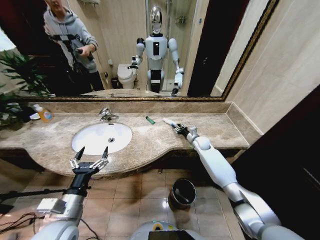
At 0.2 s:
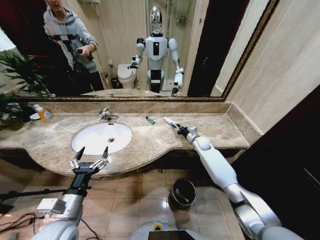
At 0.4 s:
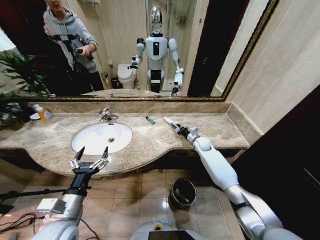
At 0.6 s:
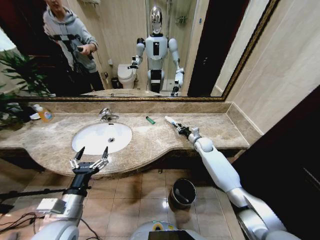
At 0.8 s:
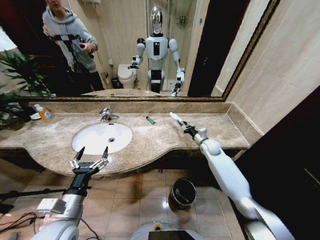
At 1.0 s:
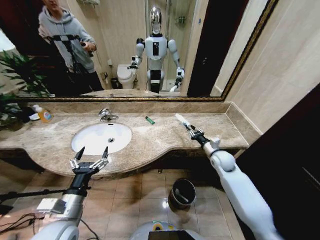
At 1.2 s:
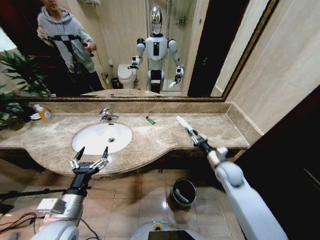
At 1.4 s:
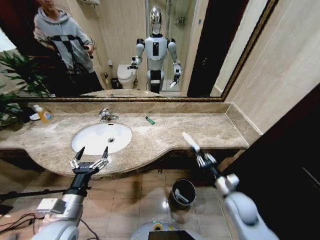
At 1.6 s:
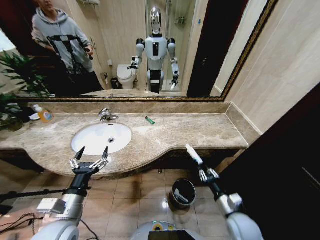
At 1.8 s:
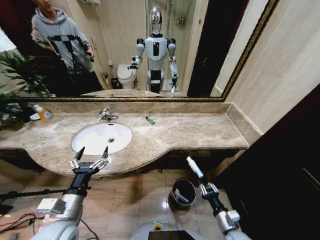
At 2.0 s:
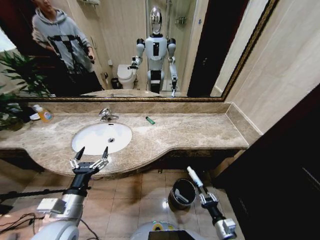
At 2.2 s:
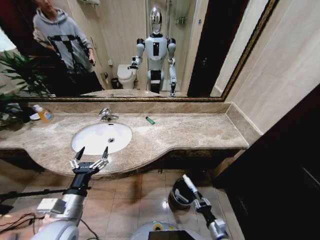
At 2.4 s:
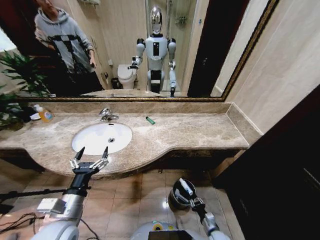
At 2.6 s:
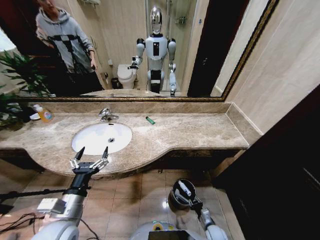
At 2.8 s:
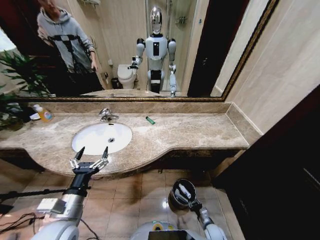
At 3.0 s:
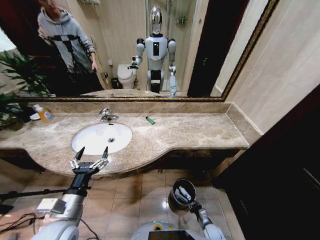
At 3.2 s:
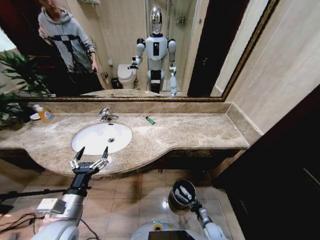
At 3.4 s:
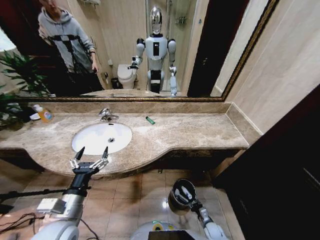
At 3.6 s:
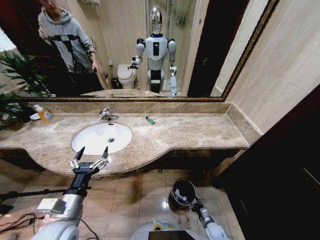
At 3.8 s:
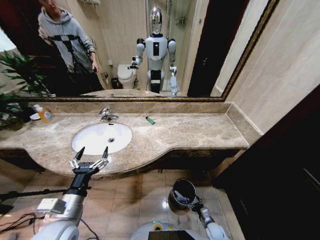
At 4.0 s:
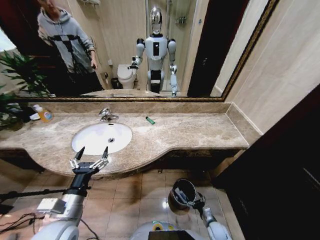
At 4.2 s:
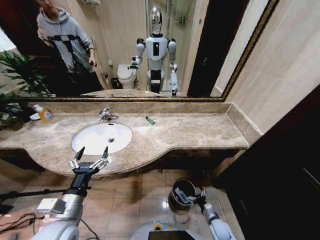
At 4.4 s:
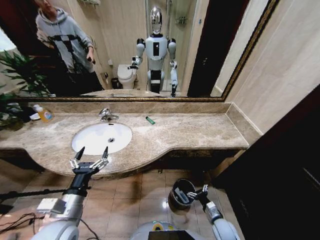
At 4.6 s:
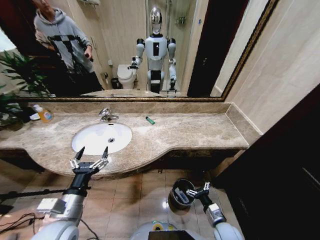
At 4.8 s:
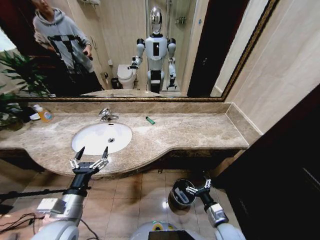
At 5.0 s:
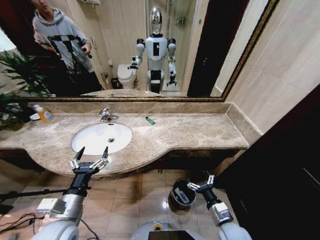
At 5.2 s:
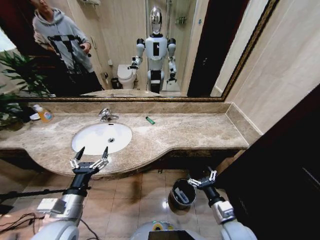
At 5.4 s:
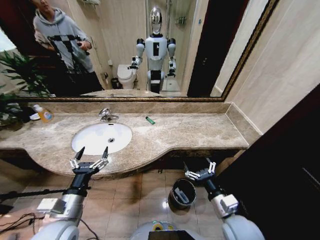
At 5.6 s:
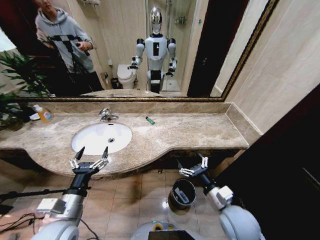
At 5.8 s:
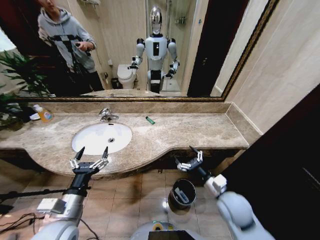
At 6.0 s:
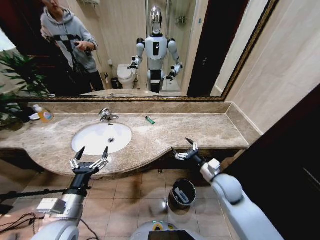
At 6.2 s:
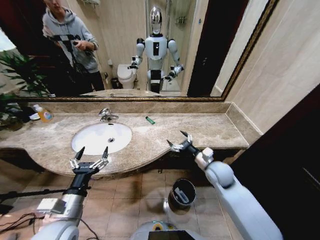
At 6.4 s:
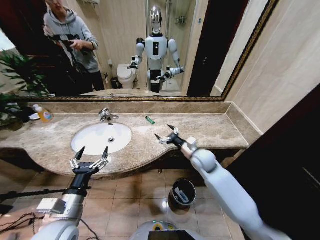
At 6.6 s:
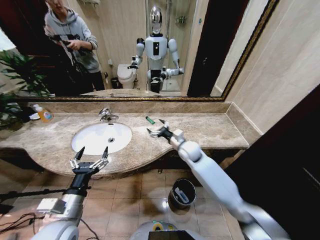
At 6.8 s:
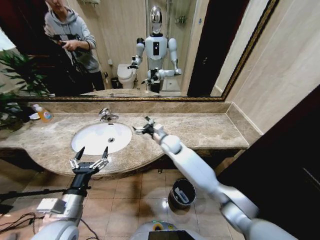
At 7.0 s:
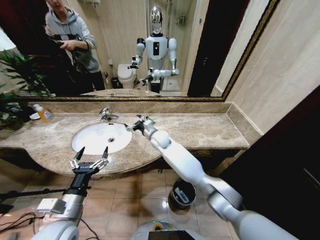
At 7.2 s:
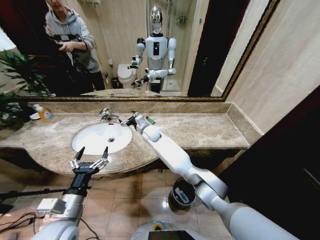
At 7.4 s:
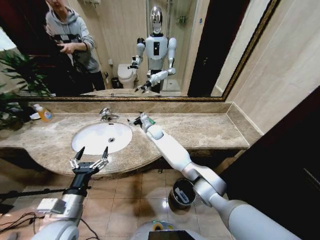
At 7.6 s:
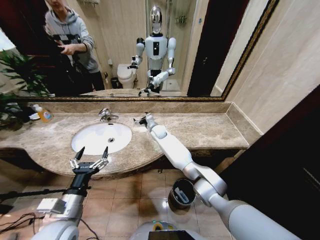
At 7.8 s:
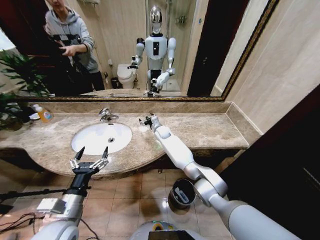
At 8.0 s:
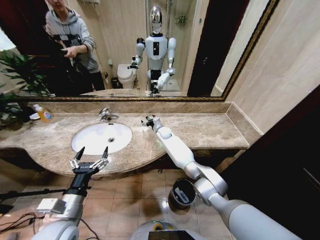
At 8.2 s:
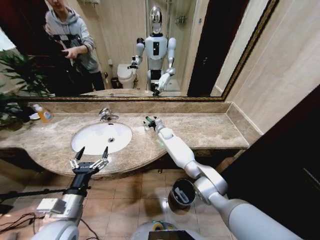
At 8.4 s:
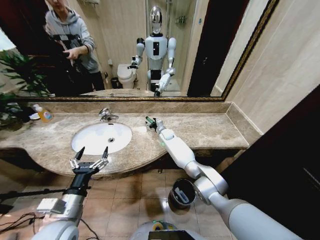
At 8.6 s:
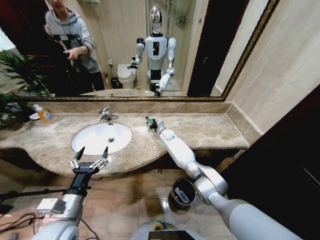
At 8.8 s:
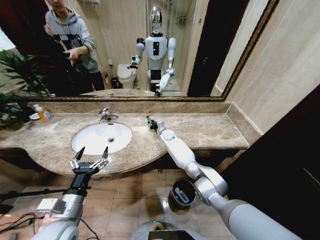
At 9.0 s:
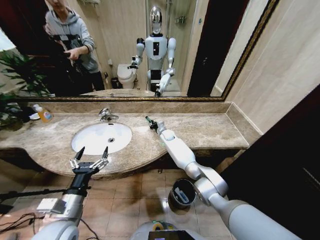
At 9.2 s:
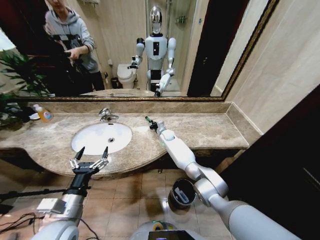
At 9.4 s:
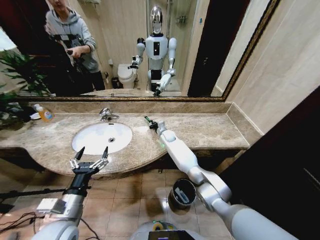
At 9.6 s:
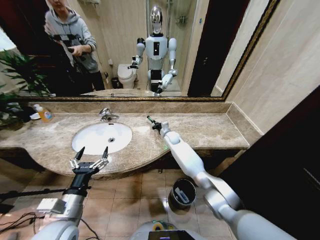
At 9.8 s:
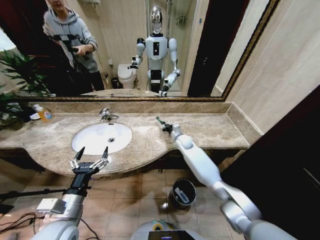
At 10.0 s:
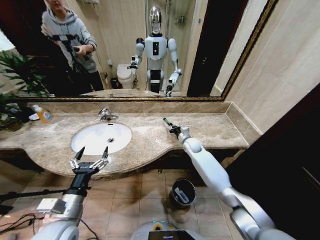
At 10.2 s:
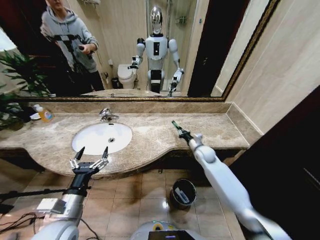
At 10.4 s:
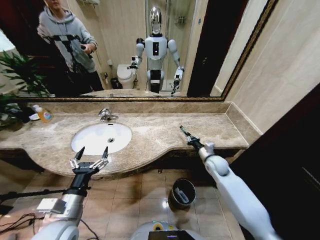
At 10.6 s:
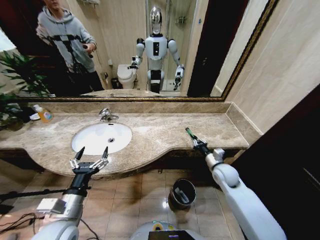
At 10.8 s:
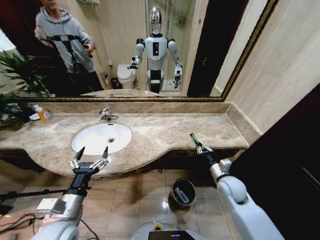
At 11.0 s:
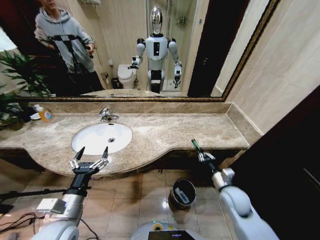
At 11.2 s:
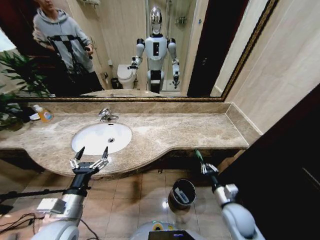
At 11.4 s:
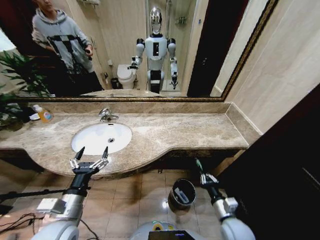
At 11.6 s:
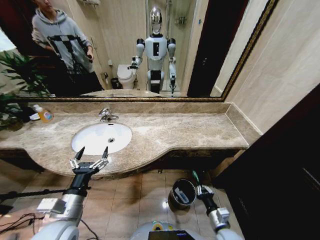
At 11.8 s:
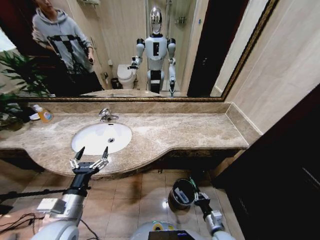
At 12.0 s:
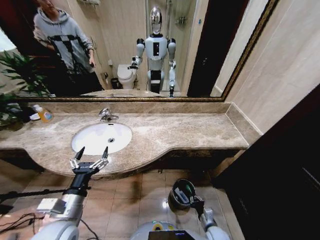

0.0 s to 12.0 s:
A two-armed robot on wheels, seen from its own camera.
Task of the whole recording: Pick up the trash from the sink and place it in the trash bin.
0.0 to 1.6 s: The right gripper heads backward, covering some 40 cm.
1.6 to 3.0 s: The right gripper heads downward, covering approximately 25 cm.
3.0 to 4.4 s: The right gripper is displaced upward by about 15 cm, and opens its fingers.
4.4 to 6.0 s: The right gripper moves upward and forward, approximately 25 cm.
6.0 to 7.6 s: The right gripper moves forward and to the left, some 40 cm.
7.6 to 9.0 s: The right gripper is displaced downward and to the right by roughly 10 cm, and closes.
9.0 to 10.4 s: The right gripper travels backward and to the right by about 30 cm.
10.4 to 12.0 s: The right gripper travels backward and downward by about 35 cm.

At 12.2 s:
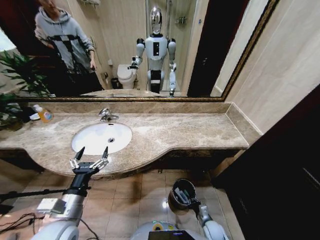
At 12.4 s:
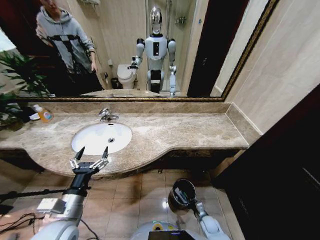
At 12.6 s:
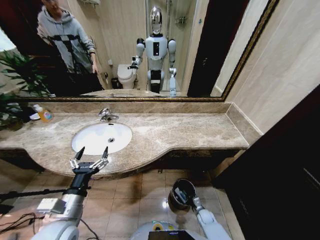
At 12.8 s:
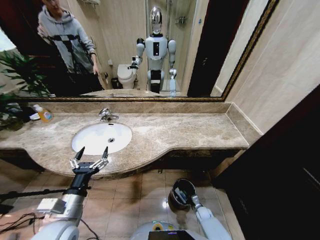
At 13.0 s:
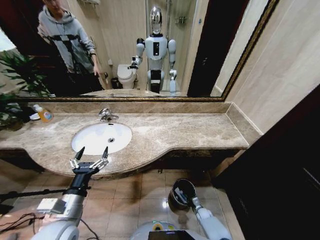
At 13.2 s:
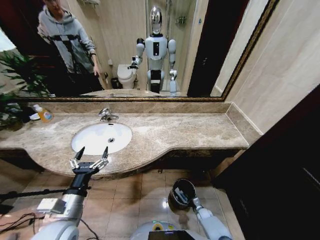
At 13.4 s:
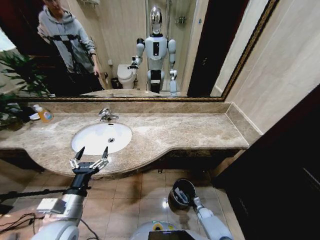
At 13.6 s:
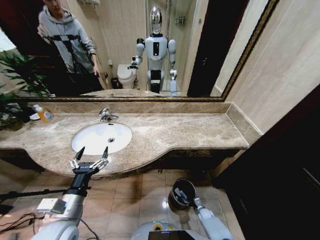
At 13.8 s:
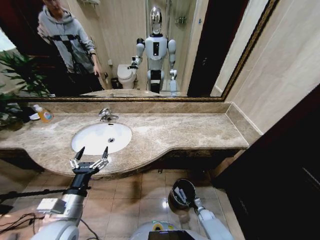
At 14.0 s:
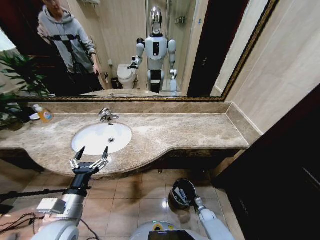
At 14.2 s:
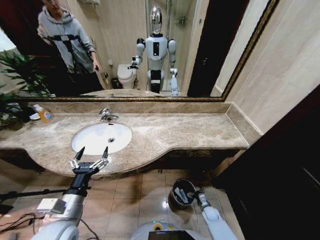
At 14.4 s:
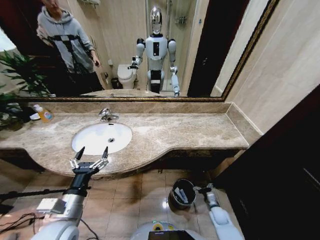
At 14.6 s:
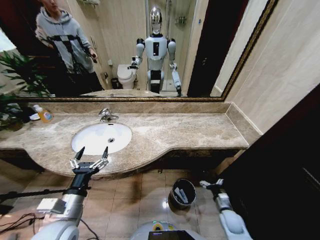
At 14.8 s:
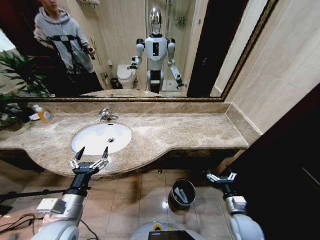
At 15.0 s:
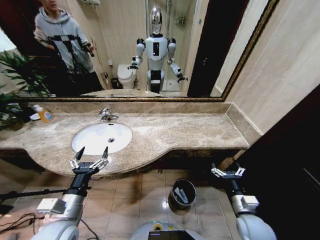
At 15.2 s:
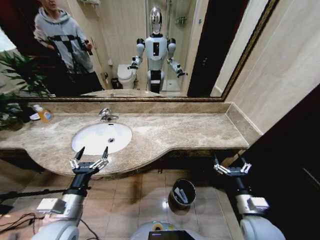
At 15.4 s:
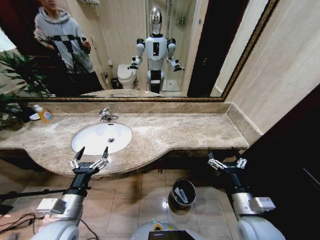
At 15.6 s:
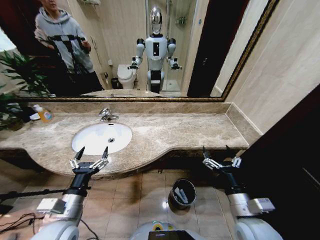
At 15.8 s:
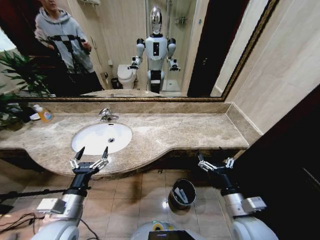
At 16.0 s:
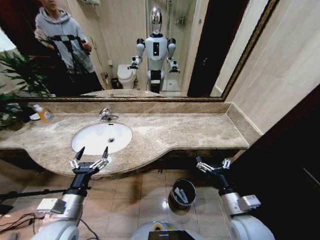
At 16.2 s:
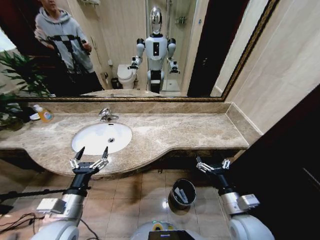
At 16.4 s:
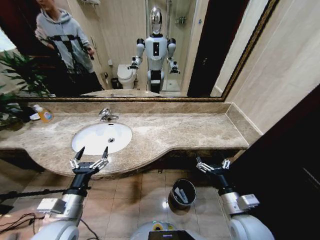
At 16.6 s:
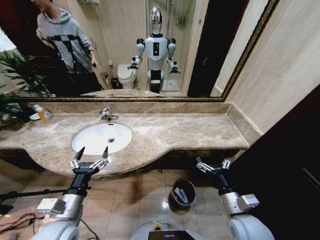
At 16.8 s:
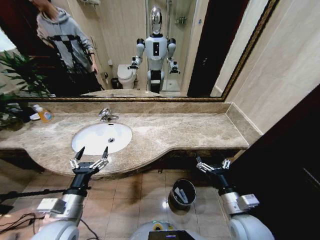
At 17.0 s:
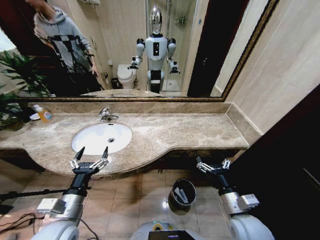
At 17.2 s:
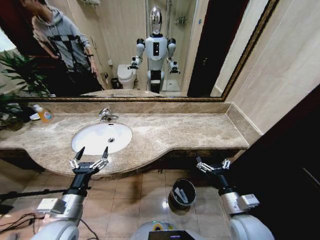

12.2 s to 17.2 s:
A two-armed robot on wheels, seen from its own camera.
Task of the whole recording: Pick up the trash from the sink and place it in the trash bin.
12.2 to 13.8 s: The right gripper moves downward and forward, roughly 15 cm, and opens its fingers.
13.8 to 15.6 s: The right gripper goes roughly 40 cm upward, and opens.
15.6 to 17.2 s: The grippers stay close to where they were, moving slightly.

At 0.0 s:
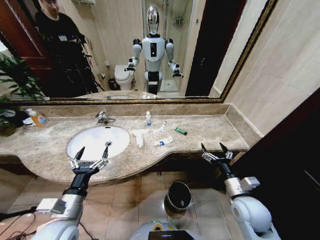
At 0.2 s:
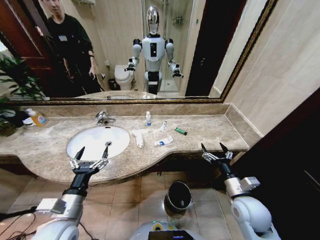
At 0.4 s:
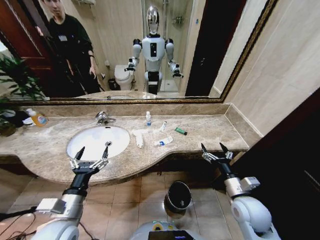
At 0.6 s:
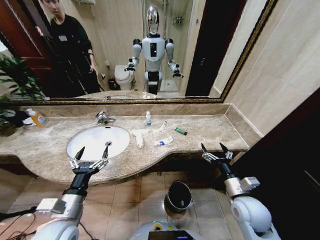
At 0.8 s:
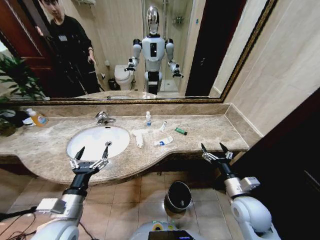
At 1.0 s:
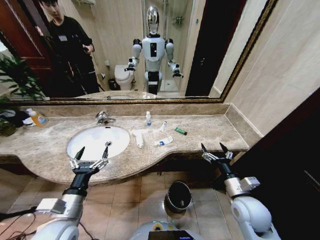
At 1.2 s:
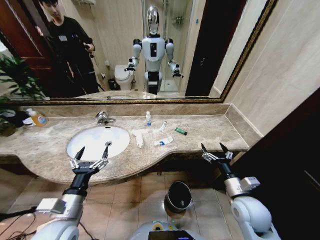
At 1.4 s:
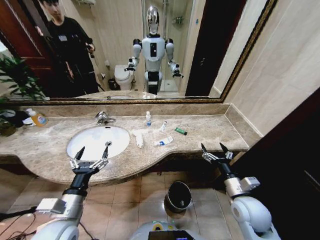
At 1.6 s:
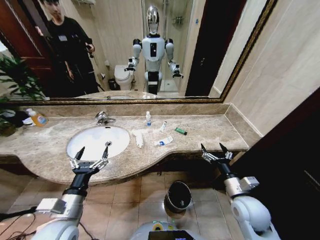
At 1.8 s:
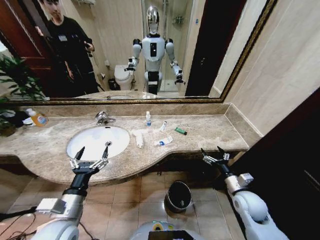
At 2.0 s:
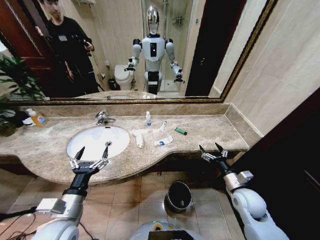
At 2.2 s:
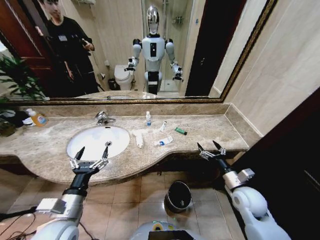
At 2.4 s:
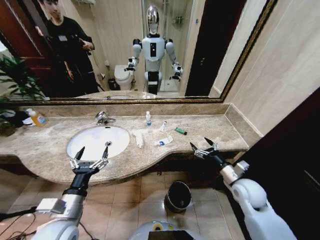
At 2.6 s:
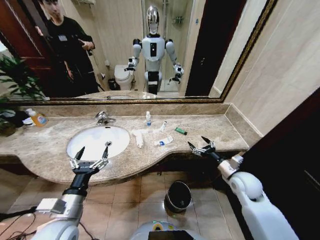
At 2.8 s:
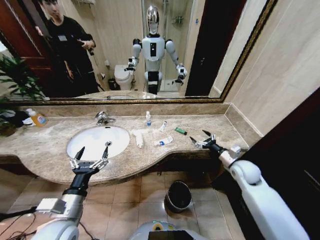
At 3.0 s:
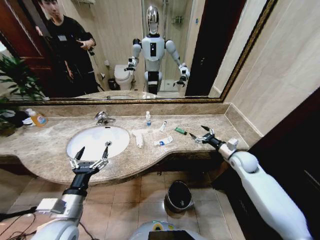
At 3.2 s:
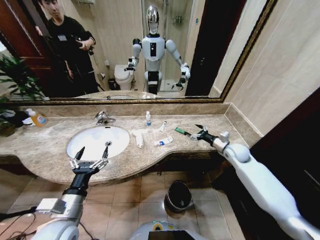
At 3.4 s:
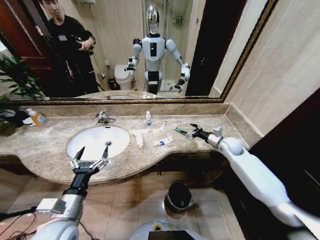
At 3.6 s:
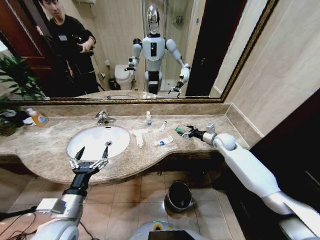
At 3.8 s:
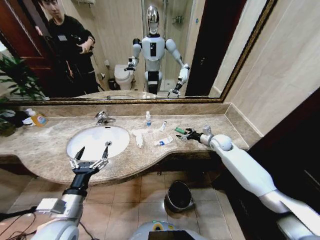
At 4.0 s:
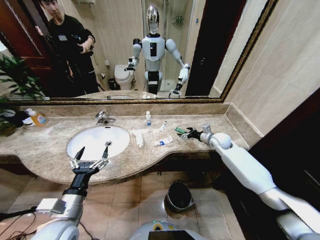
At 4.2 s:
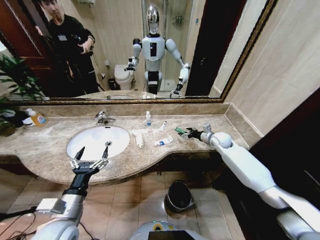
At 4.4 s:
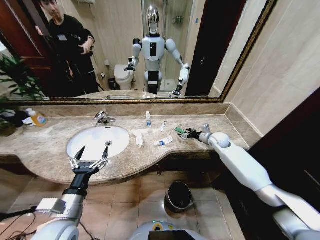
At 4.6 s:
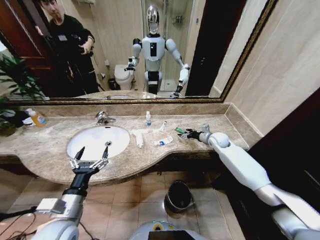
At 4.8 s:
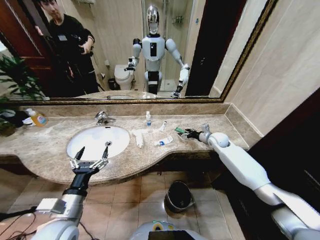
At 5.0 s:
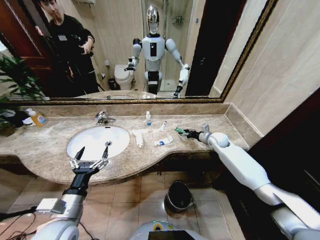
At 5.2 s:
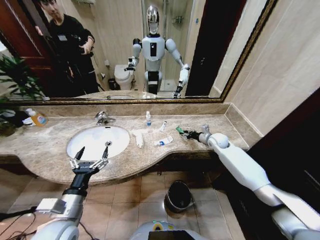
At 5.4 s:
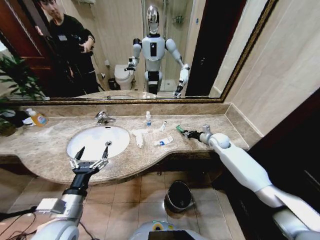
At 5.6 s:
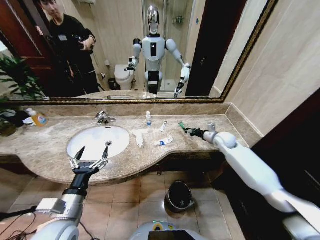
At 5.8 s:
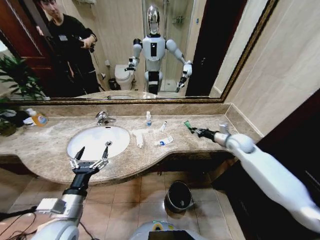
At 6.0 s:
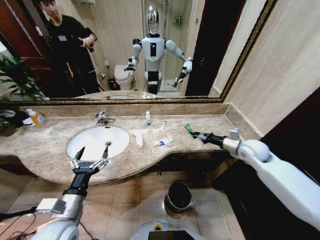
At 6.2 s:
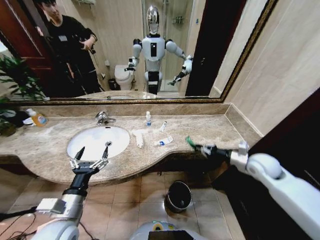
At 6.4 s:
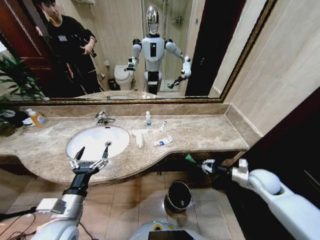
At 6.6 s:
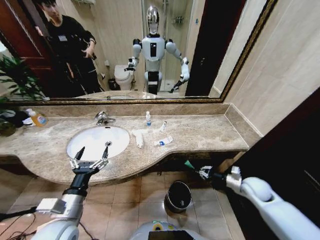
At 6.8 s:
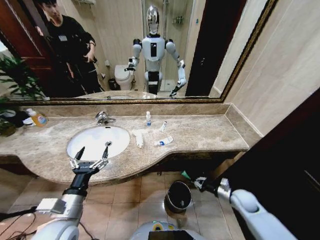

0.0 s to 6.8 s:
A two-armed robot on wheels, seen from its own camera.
Task of the whole recording: Pick up the trash from the sink and place it in the trash bin.
1.4 to 2.8 s: The right gripper heads forward and to the right, covering some 15 cm.
2.8 to 4.0 s: The right gripper travels forward by roughly 15 cm.
4.0 to 5.4 s: The right gripper closes.
5.4 to 6.8 s: The right gripper goes approximately 30 cm backward and downward.
